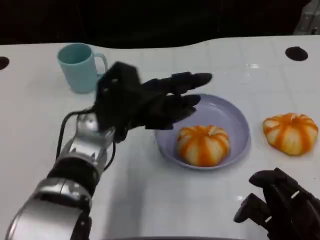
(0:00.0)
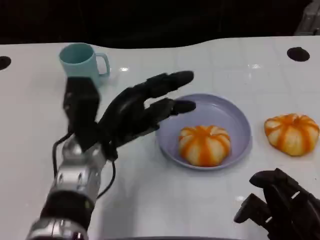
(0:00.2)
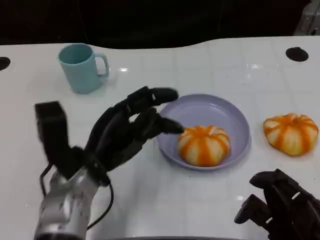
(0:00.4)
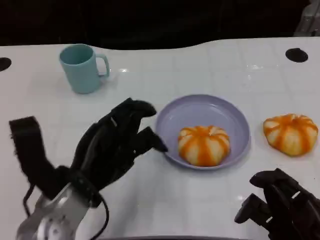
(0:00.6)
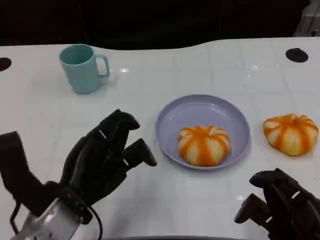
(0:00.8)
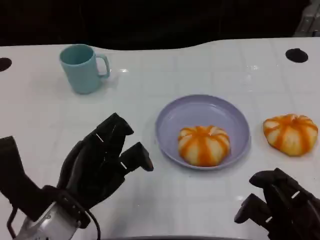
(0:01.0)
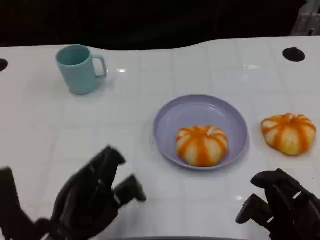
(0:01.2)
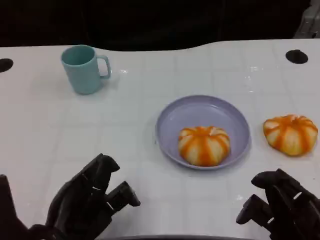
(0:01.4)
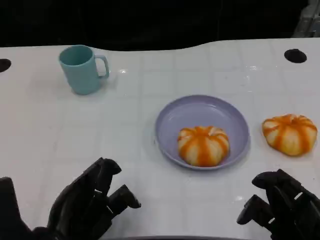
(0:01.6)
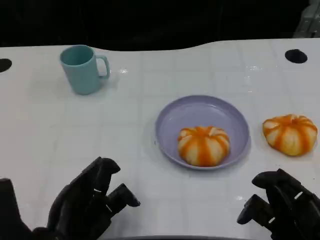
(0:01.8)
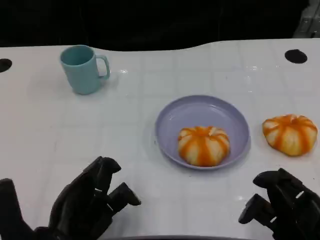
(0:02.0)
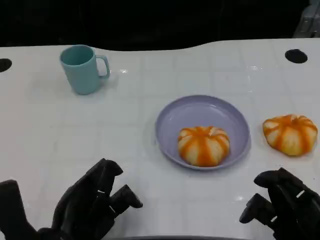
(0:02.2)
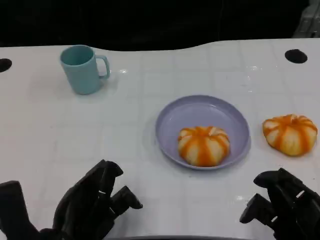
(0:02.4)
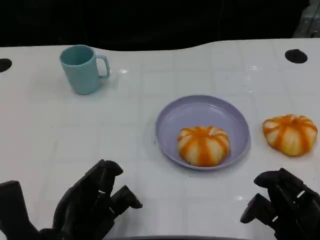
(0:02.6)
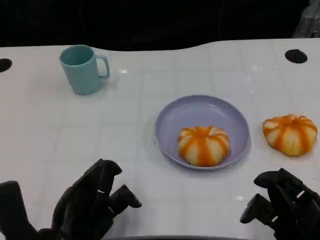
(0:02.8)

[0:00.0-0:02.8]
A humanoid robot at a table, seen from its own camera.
Task of the whole recording: Grasp the bread from the table and place it into the plate.
0:00.0 to 0:01.4: The left hand shifts about 20 cm backward and to the left.
0:01.4 to 0:02.8: Neither hand changes place.

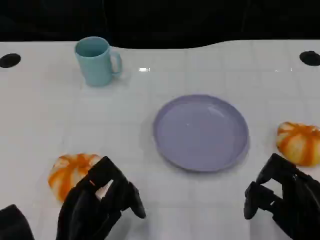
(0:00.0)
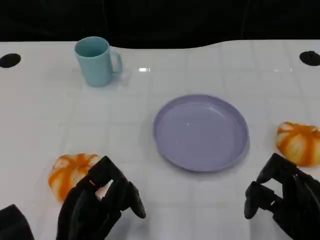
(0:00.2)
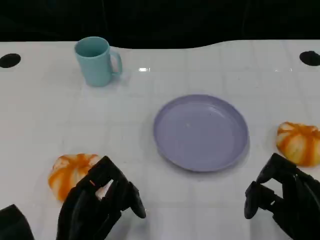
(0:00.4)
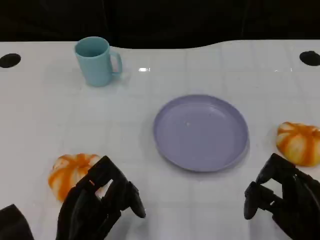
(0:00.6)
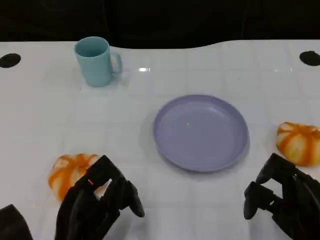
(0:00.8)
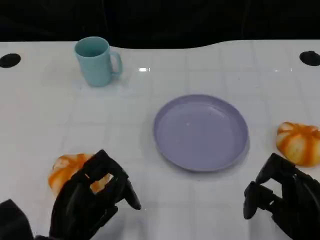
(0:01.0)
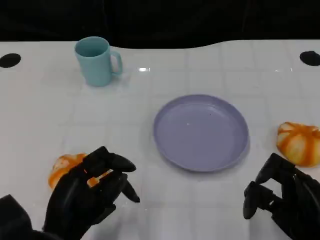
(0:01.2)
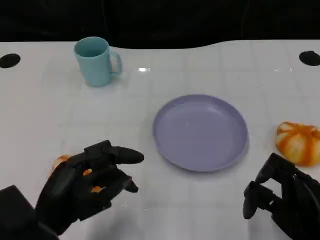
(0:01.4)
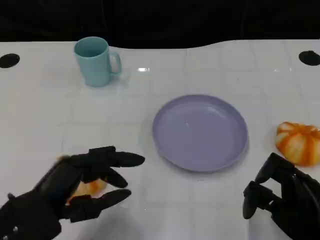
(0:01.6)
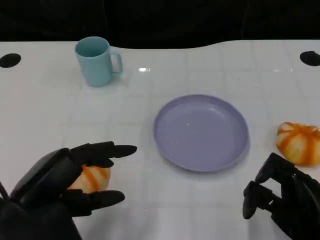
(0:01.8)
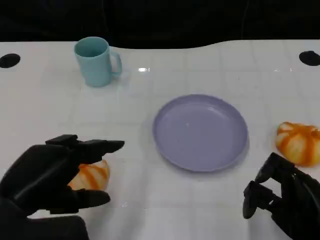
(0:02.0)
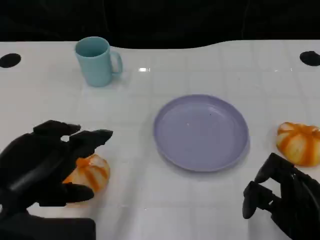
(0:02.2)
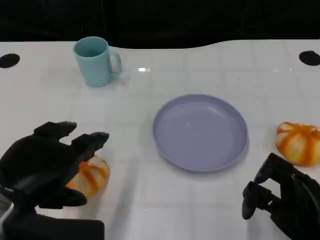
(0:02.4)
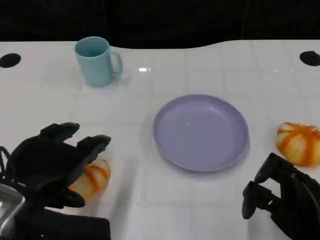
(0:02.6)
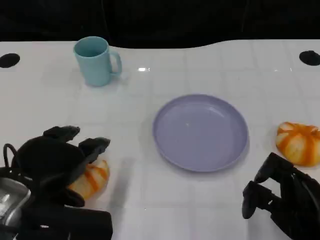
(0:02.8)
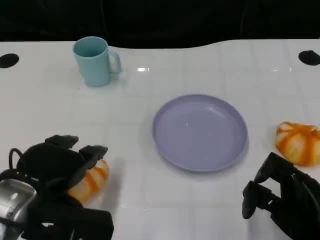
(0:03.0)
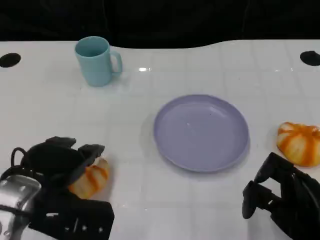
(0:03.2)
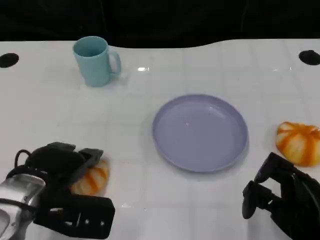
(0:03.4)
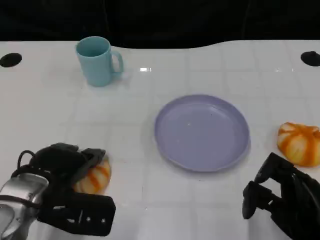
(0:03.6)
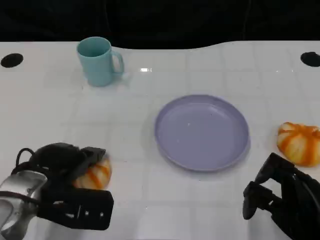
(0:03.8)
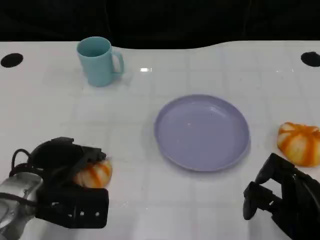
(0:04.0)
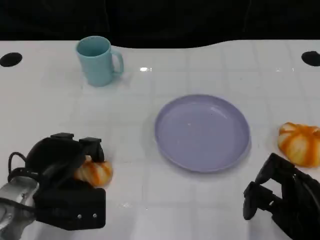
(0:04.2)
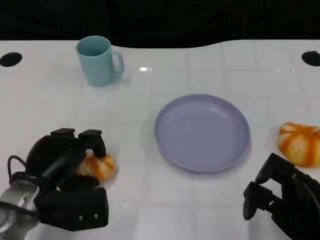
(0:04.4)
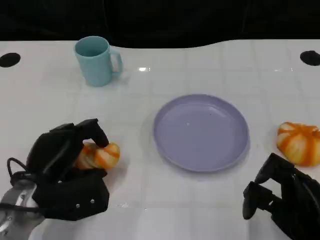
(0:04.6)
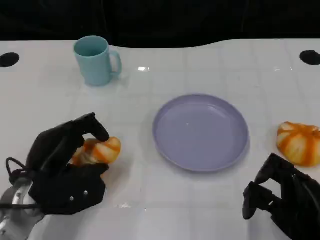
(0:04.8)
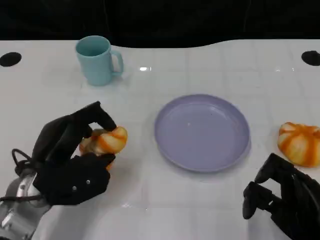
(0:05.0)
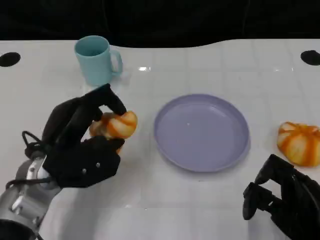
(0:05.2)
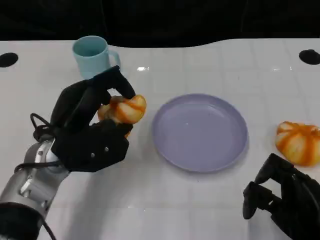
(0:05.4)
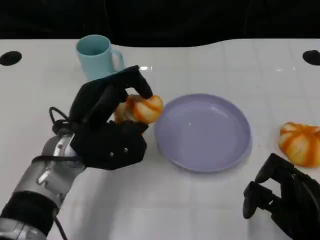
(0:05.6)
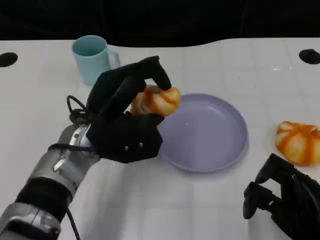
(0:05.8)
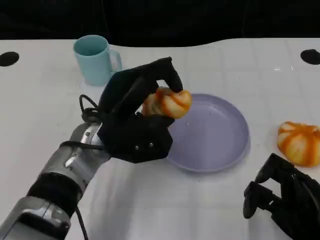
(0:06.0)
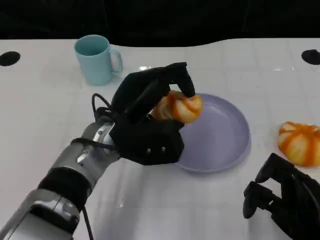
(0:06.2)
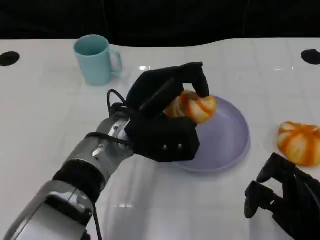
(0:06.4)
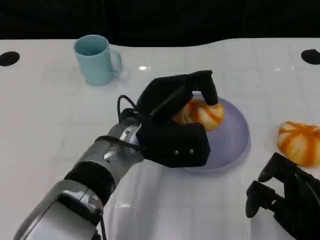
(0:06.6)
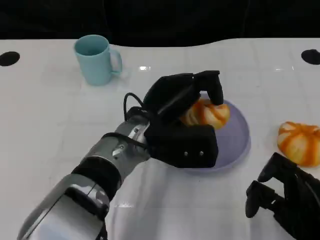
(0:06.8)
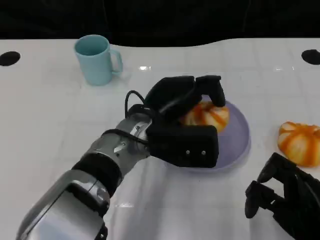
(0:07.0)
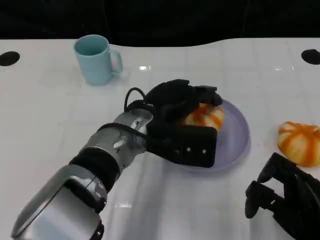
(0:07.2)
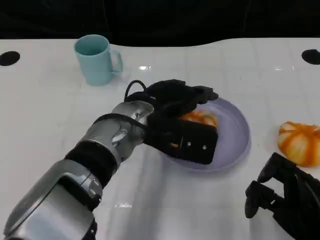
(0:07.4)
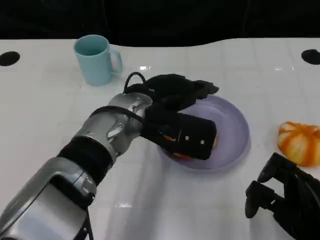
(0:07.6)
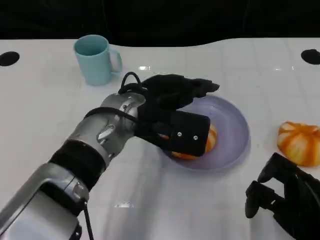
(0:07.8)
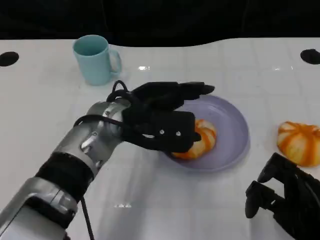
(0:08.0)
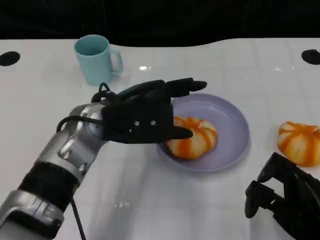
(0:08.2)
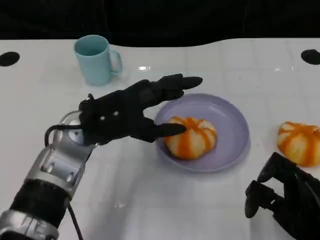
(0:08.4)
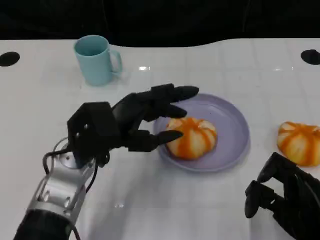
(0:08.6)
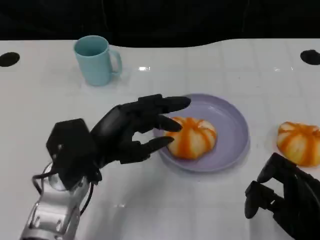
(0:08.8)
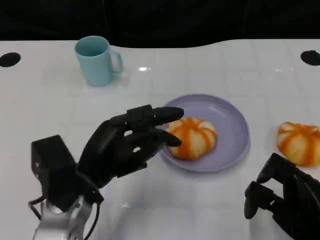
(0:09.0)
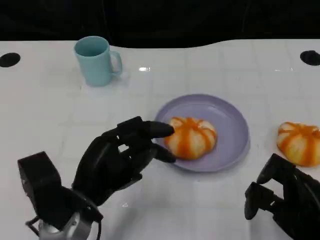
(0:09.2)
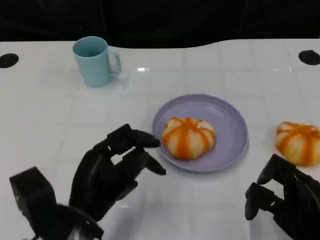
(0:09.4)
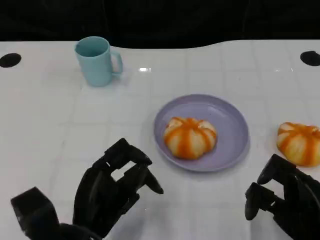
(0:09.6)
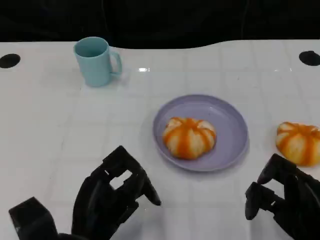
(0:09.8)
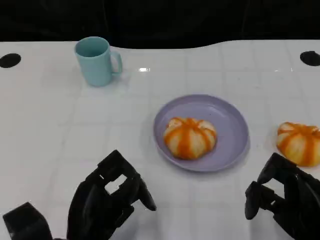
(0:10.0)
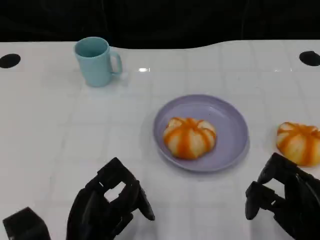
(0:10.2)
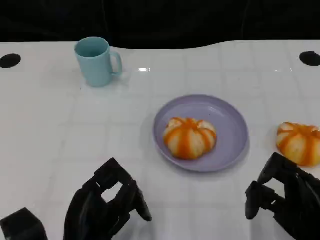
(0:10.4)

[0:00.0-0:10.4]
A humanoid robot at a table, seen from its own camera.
Task of the whole recording: Grasp the bread from the table and place it into the plate.
0:00.0 to 0:01.4: The left hand shifts by about 5 cm.
0:01.4 to 0:03.0: The left hand shifts by about 5 cm.
0:03.0 to 0:04.4: The left hand heads downward, covering approximately 5 cm.
0:04.4 to 0:06.0: The left hand is displaced to the right, upward and forward by approximately 15 cm.
0:06.0 to 0:07.4: The left hand travels to the right by some 5 cm.
0:07.4 to 0:09.0: The left hand shifts about 15 cm to the left, backward and downward.
0:09.0 to 0:10.4: The left hand is displaced backward by some 10 cm.

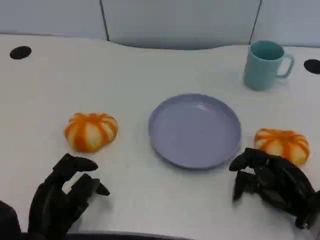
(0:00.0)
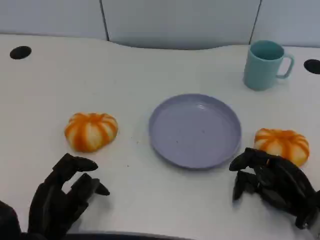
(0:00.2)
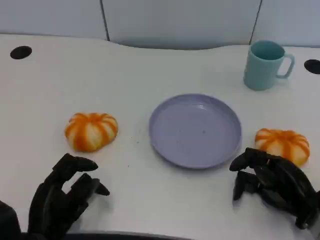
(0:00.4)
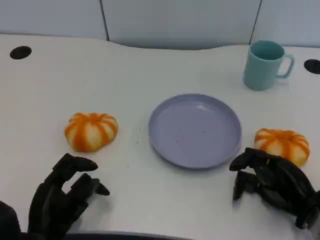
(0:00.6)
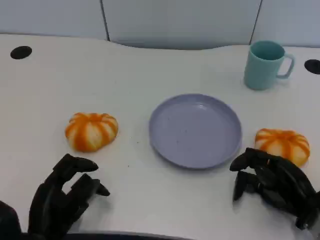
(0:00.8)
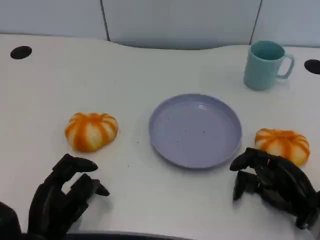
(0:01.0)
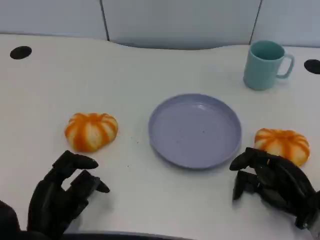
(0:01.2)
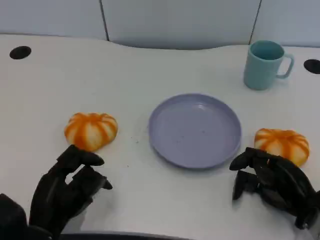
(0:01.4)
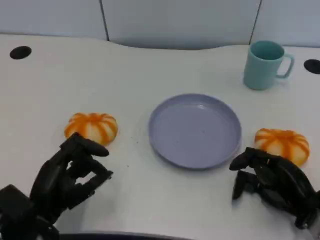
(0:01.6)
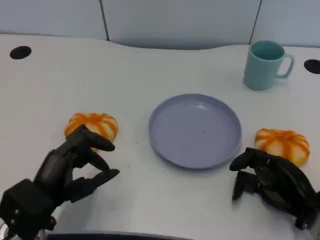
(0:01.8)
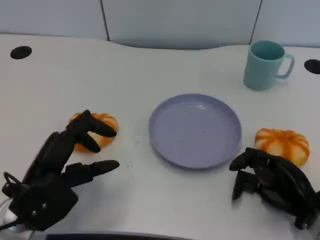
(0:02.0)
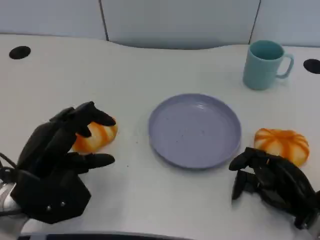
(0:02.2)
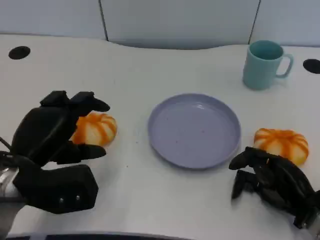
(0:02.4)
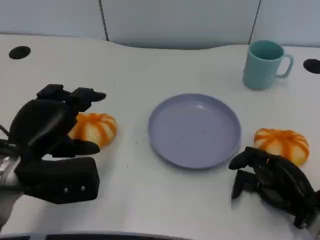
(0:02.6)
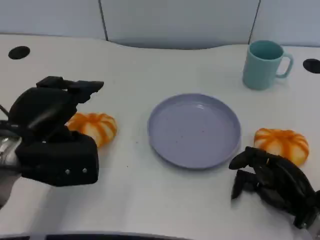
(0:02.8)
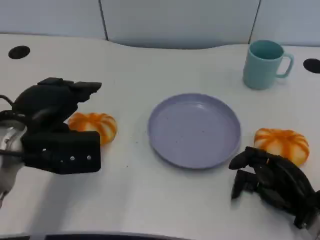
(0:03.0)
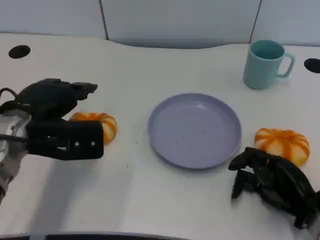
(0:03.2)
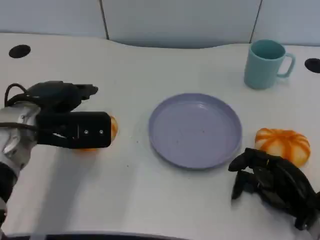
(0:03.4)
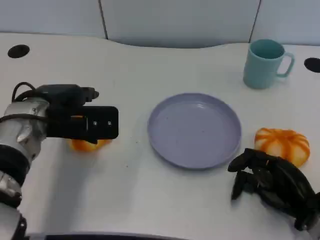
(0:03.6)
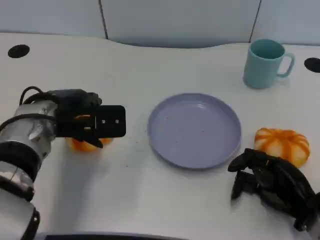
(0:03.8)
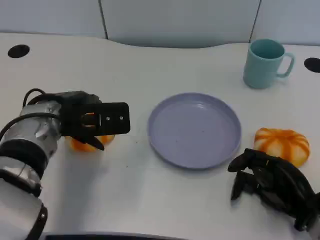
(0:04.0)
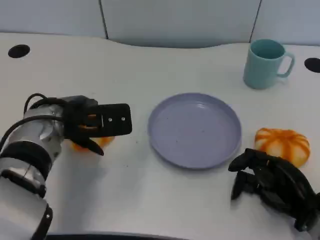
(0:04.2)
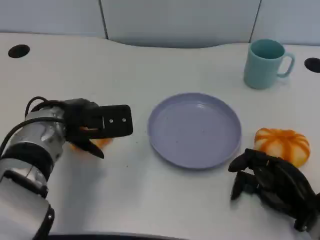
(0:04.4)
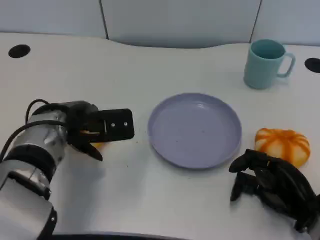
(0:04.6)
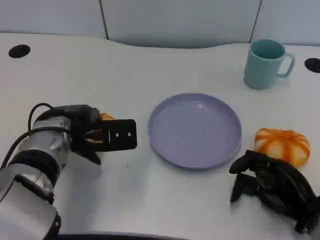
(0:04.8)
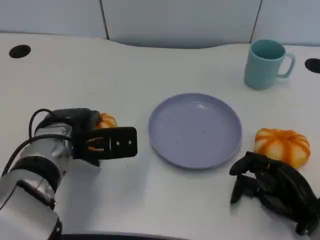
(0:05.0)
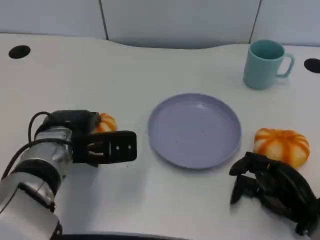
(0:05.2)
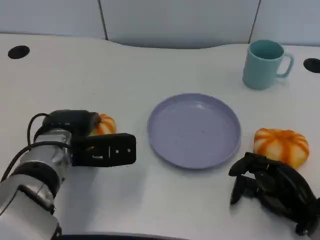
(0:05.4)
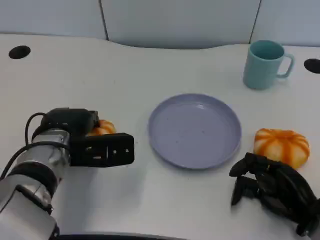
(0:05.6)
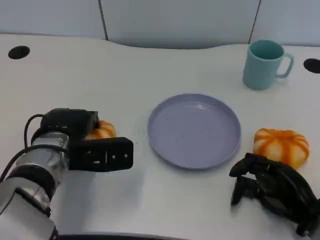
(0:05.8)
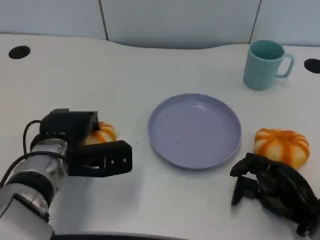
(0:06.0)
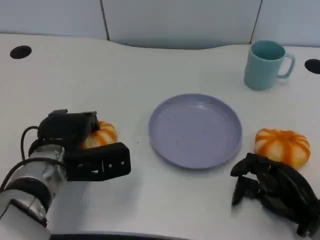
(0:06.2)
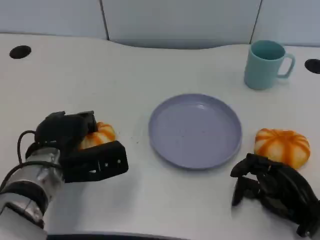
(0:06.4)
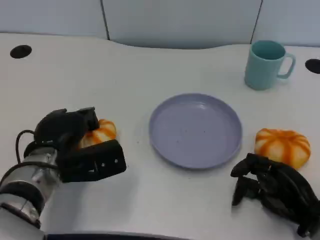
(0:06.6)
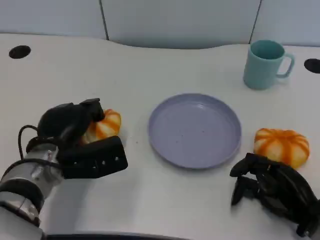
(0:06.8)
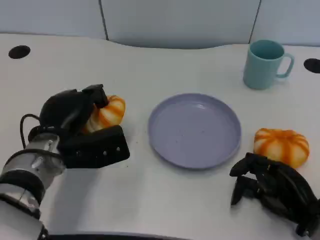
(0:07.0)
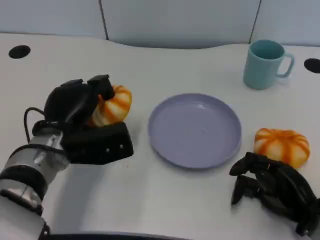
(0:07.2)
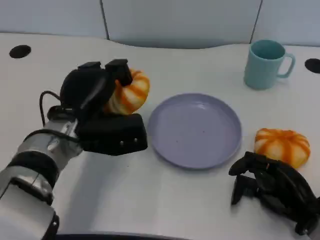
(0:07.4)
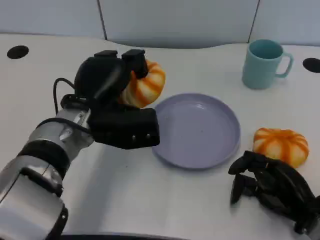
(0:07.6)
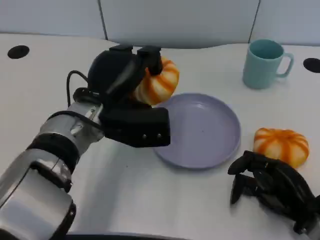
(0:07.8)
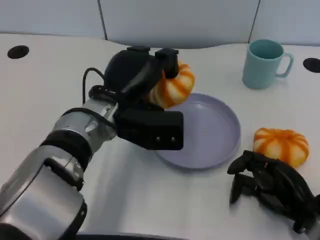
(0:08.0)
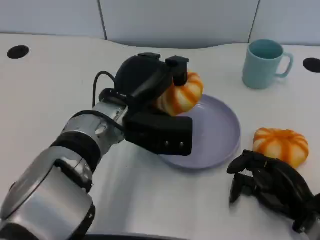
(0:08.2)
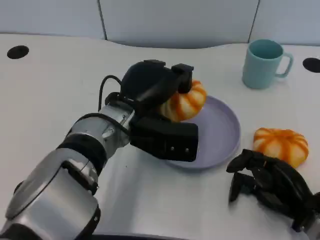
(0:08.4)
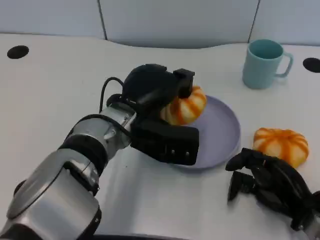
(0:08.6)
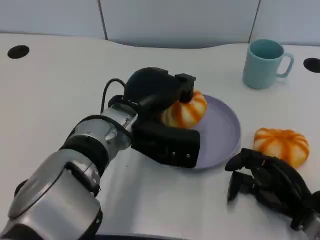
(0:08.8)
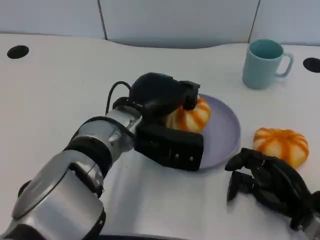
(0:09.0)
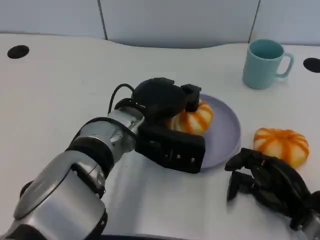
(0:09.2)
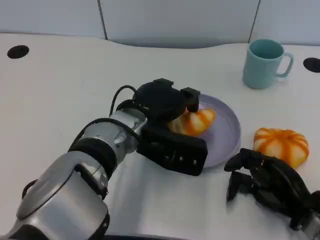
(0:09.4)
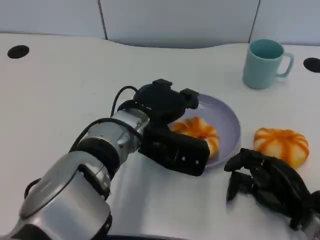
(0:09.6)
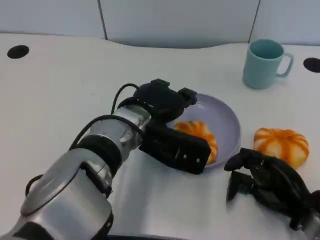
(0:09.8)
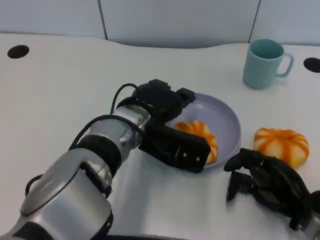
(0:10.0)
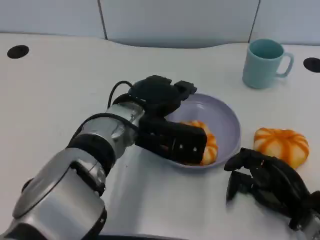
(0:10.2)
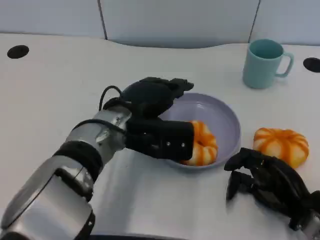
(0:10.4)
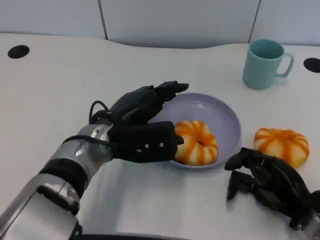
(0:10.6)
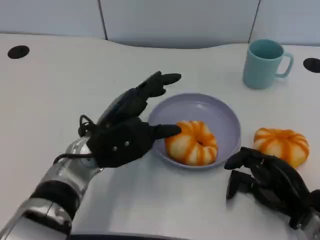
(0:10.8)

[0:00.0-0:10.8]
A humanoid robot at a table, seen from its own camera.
Task of the whole recording: Grasp the bread from the table and place it into the plate.
0:01.6 to 0:03.0: The left hand is displaced upward and forward by some 15 cm.
0:03.0 to 0:04.6: The left hand travels to the right by about 5 cm.
0:04.6 to 0:06.2: The left hand moves approximately 5 cm.
0:06.2 to 0:07.8: The left hand heads upward and to the right, covering about 10 cm.
0:09.2 to 0:10.8: The left hand shifts approximately 5 cm to the left.
